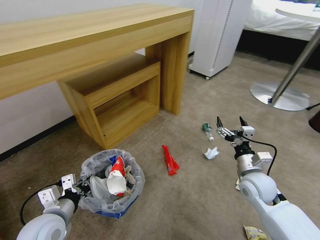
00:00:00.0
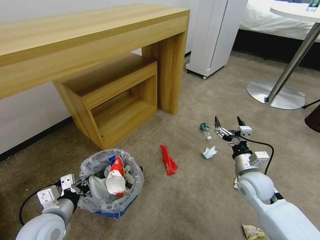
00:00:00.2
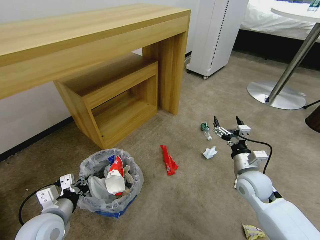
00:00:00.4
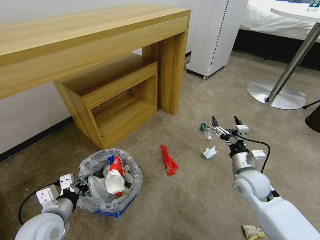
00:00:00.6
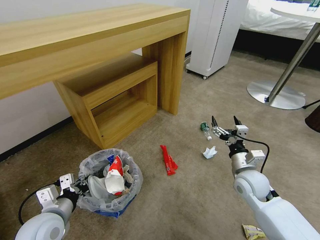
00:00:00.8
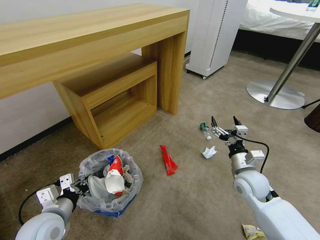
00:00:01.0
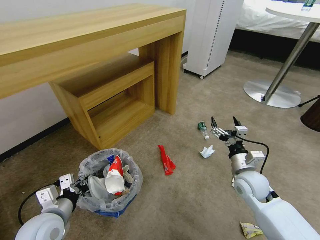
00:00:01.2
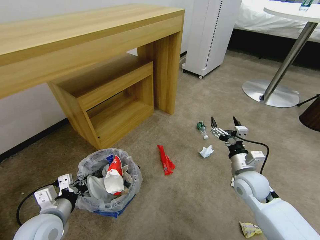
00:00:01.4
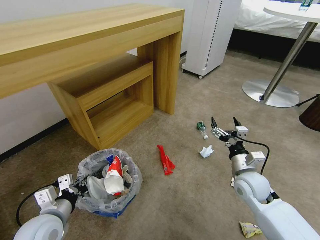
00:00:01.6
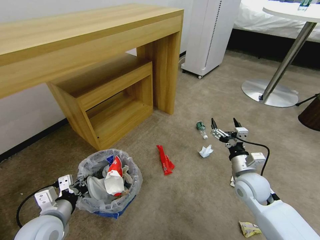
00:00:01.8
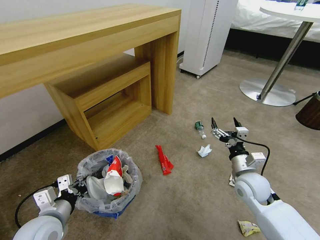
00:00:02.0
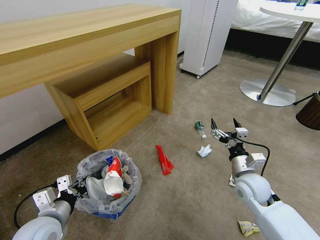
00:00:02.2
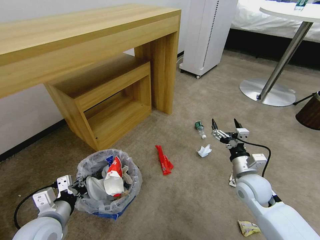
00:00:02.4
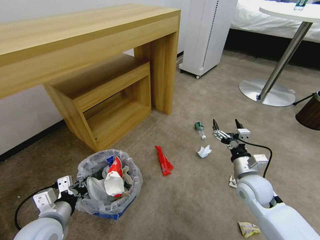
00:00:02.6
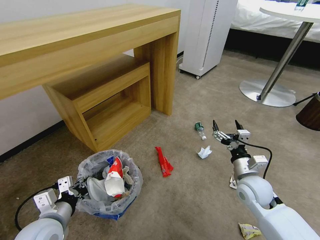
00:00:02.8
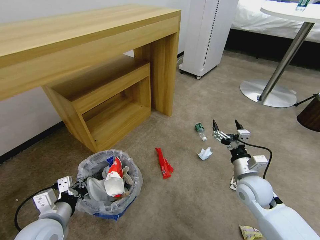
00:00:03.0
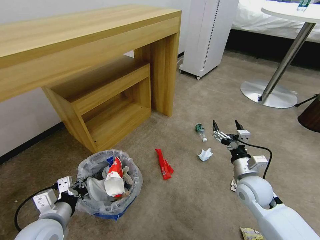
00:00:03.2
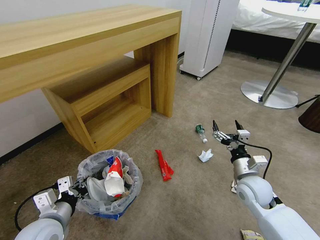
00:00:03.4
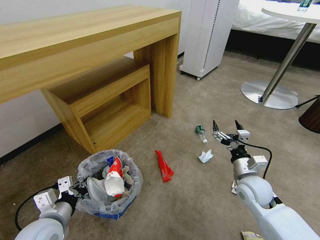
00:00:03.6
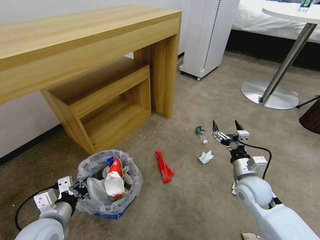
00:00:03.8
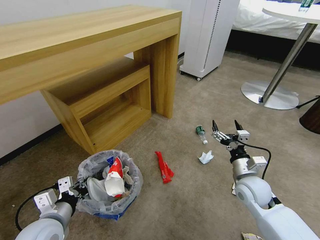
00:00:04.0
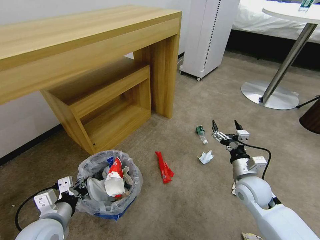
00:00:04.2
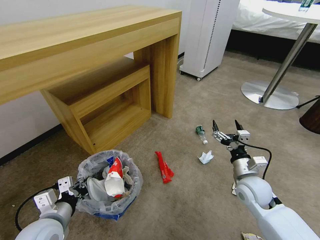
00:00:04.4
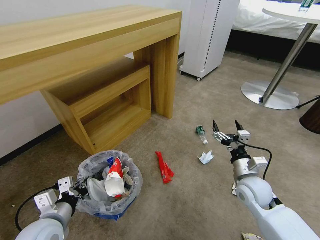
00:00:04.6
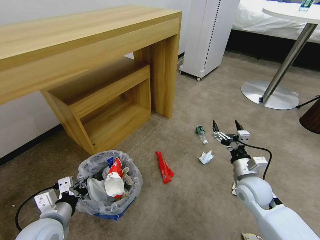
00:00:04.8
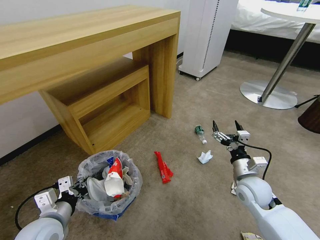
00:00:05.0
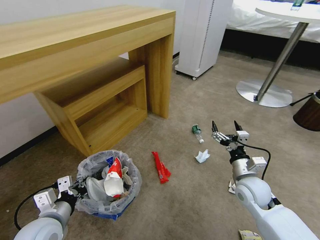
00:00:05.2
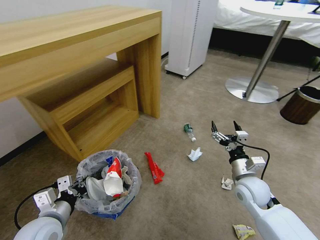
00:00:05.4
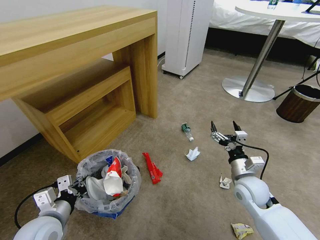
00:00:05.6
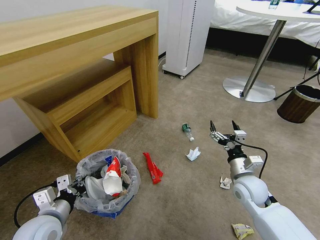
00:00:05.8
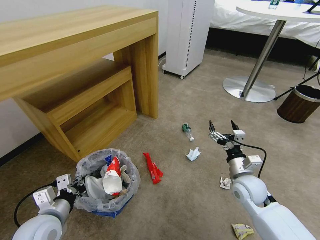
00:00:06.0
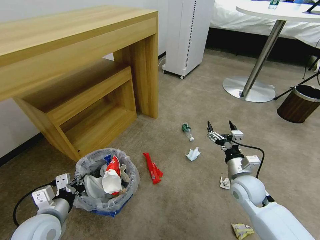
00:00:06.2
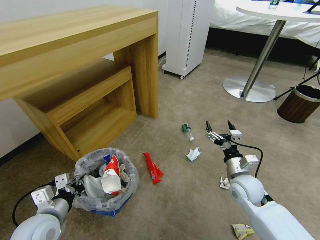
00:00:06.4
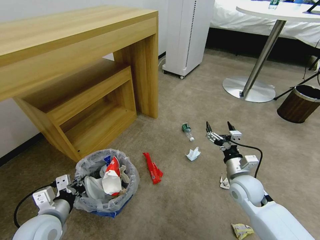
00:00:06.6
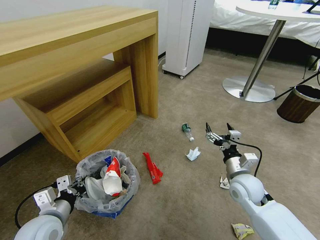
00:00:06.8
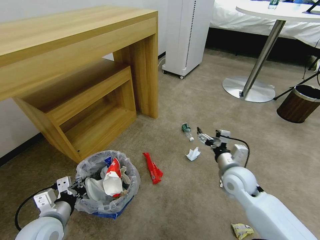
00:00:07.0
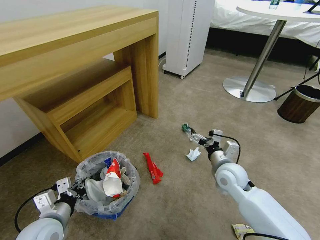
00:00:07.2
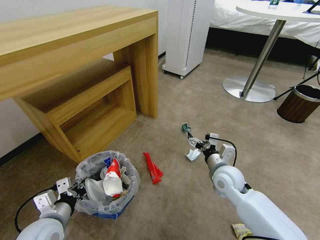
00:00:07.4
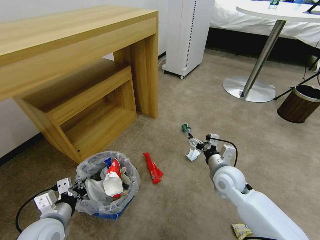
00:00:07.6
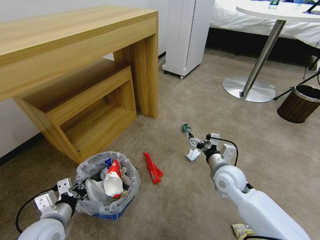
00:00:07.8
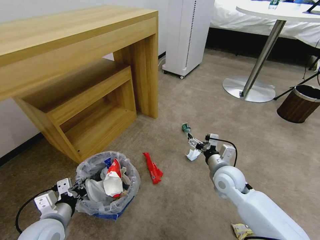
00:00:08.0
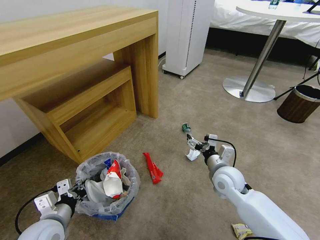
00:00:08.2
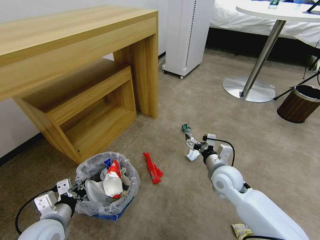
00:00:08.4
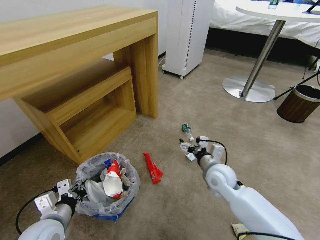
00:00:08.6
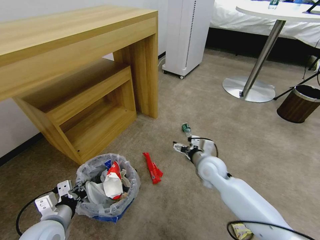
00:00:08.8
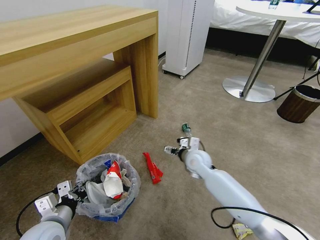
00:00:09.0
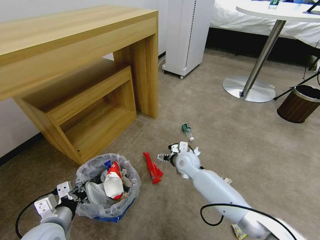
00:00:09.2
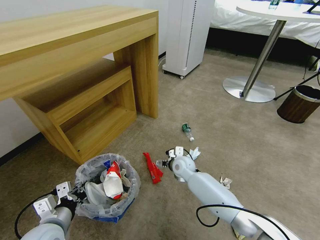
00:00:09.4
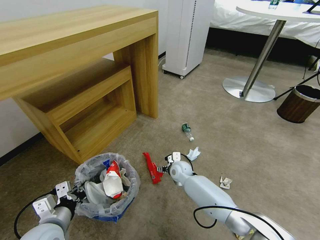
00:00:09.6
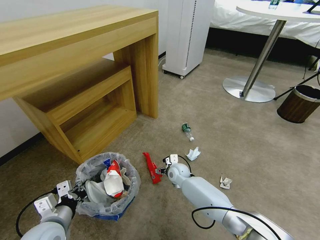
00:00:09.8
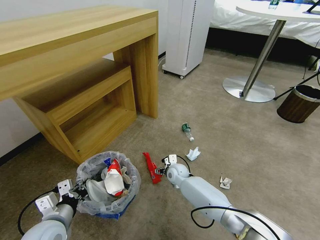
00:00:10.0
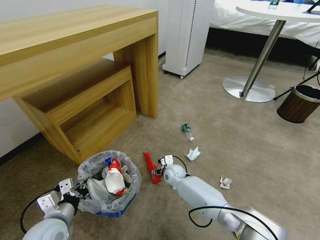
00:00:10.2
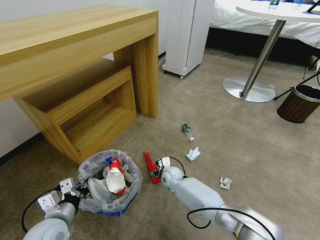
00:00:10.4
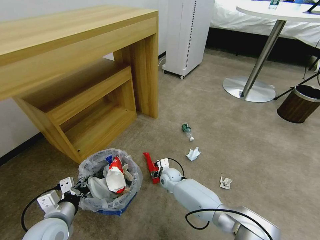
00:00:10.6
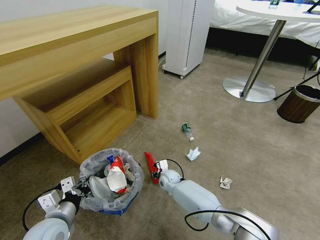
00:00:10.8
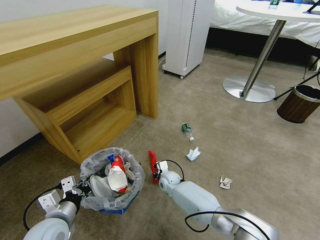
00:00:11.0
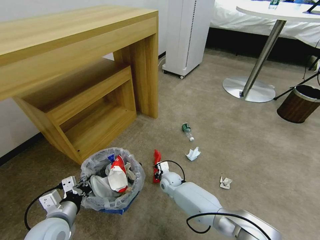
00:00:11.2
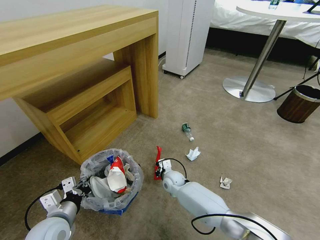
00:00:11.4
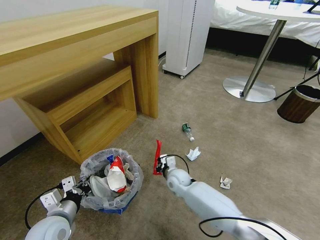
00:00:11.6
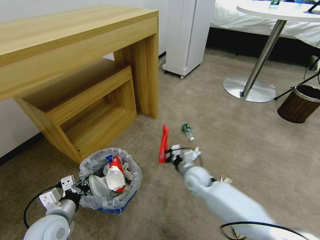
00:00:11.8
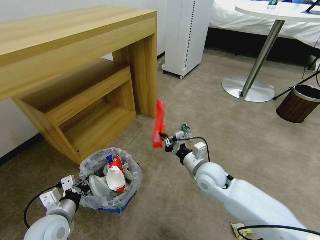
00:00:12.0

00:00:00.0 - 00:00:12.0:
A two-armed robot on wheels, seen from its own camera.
Task of the whole recording: Pick up the trash bin and place the garbage on the floor into it.
00:00:00.0 - 00:00:01.6: The grippers stay close to where they were, moving slightly.
00:00:01.6 - 00:00:03.0: The two grippers keep their place.
00:00:03.0 - 00:00:04.4: The two grippers keep their place.
00:00:06.0 - 00:00:07.6: The right gripper shifts approximately 5 cm to the left.
00:00:07.6 - 00:00:09.0: The right gripper shifts some 10 cm forward and to the left.
00:00:09.0 - 00:00:10.4: The right gripper moves downward and to the left, roughly 20 cm.
00:00:10.4 - 00:00:12.0: The right gripper travels upward, to the right and backward by some 25 cm, and closes up.

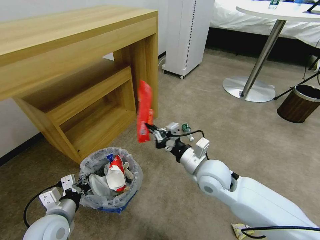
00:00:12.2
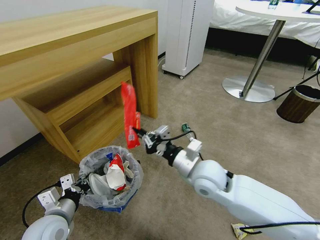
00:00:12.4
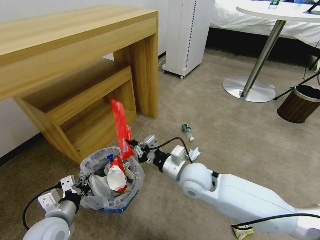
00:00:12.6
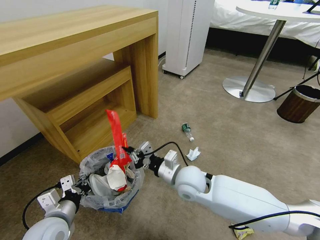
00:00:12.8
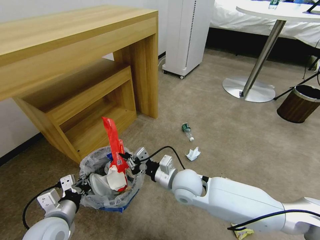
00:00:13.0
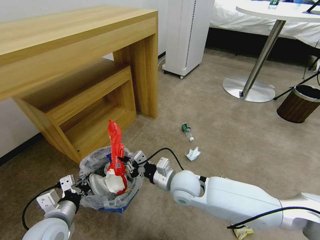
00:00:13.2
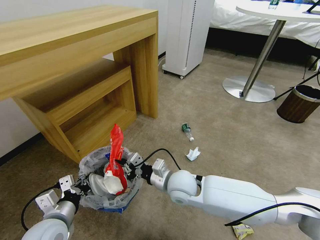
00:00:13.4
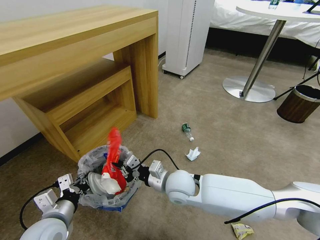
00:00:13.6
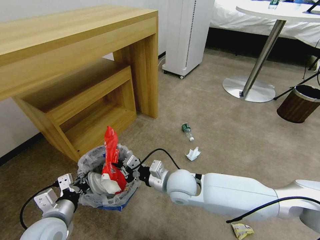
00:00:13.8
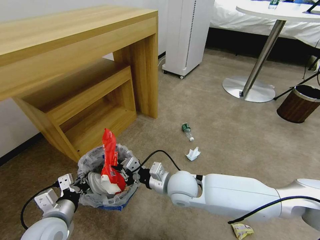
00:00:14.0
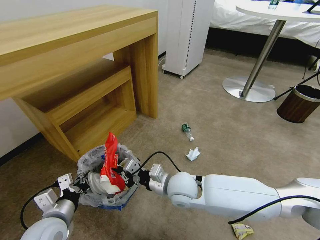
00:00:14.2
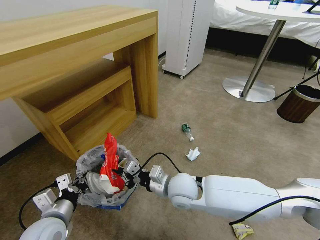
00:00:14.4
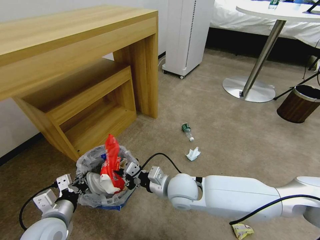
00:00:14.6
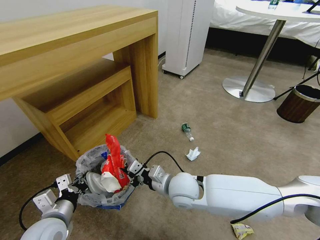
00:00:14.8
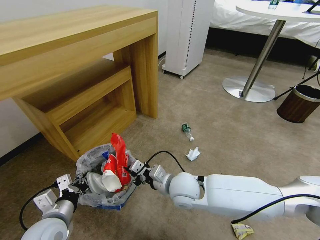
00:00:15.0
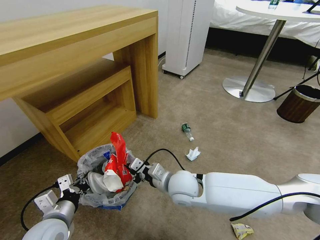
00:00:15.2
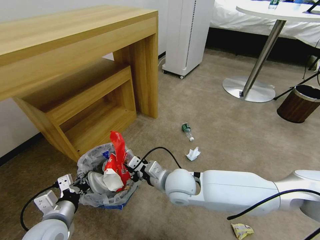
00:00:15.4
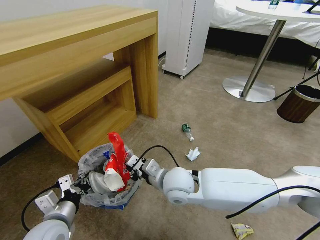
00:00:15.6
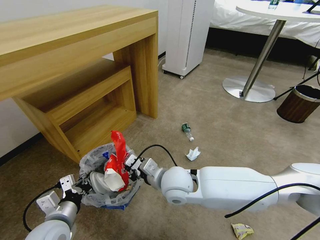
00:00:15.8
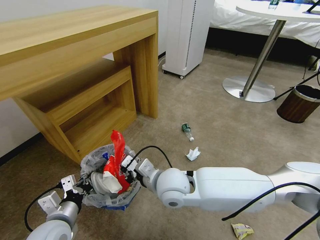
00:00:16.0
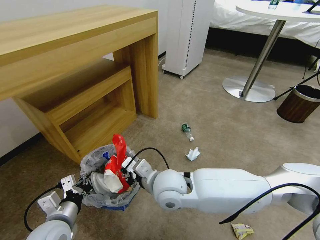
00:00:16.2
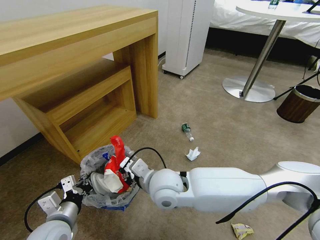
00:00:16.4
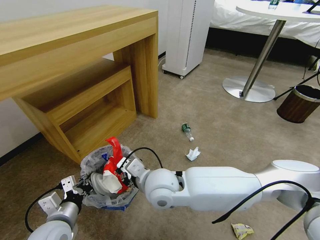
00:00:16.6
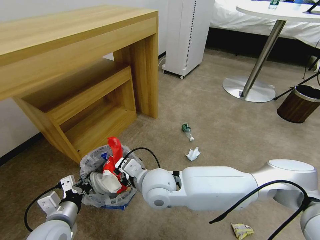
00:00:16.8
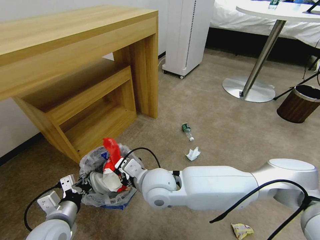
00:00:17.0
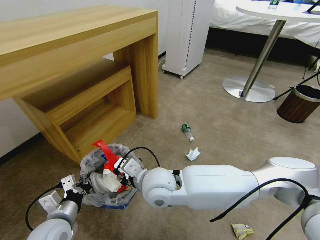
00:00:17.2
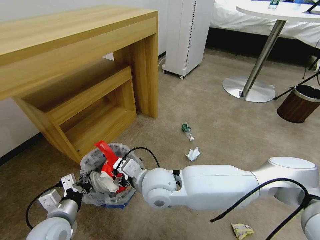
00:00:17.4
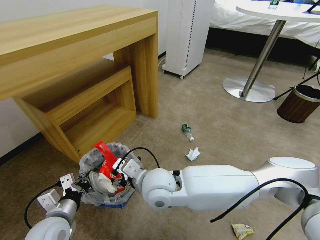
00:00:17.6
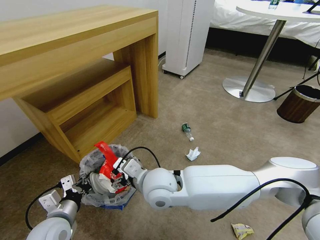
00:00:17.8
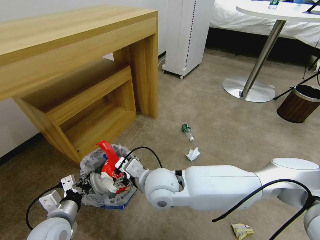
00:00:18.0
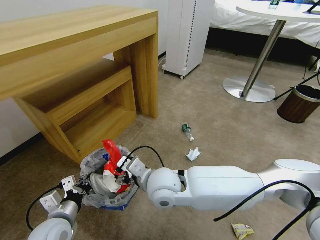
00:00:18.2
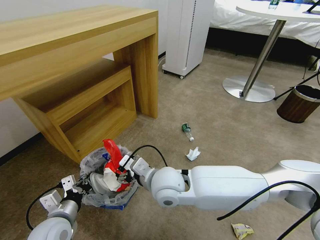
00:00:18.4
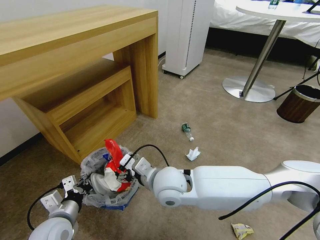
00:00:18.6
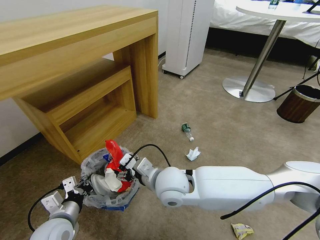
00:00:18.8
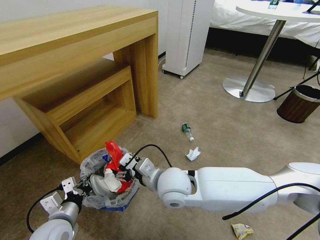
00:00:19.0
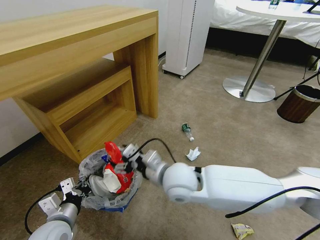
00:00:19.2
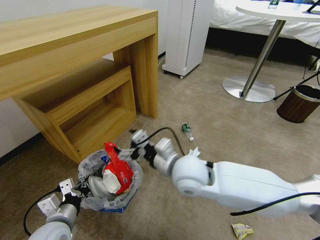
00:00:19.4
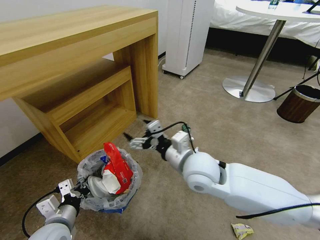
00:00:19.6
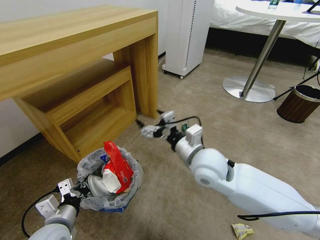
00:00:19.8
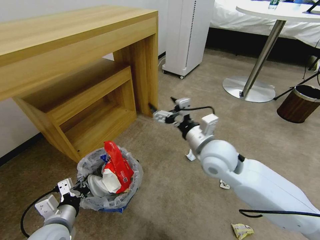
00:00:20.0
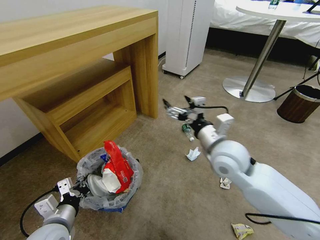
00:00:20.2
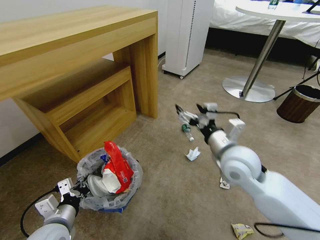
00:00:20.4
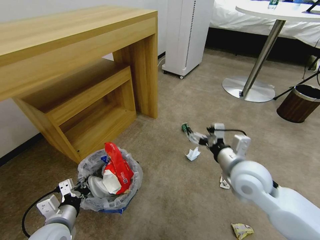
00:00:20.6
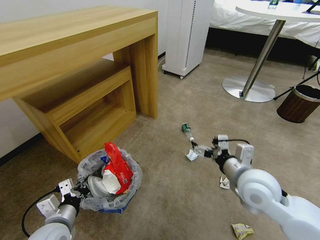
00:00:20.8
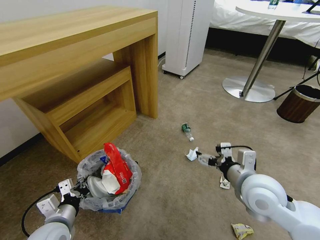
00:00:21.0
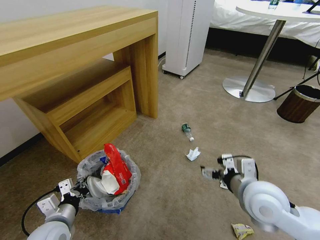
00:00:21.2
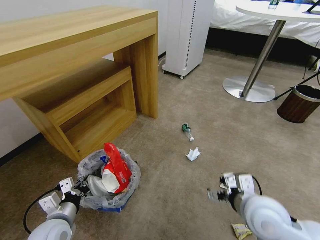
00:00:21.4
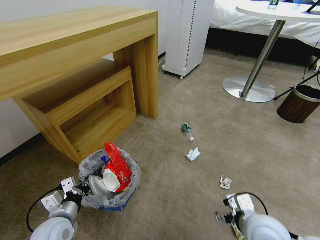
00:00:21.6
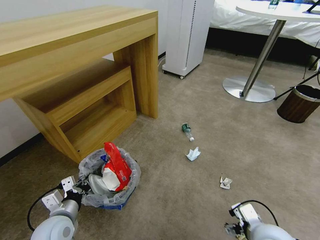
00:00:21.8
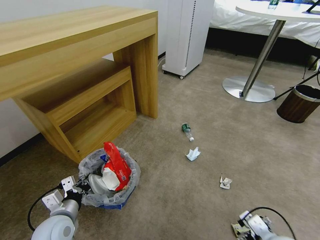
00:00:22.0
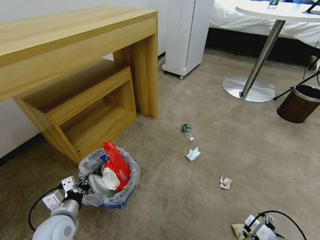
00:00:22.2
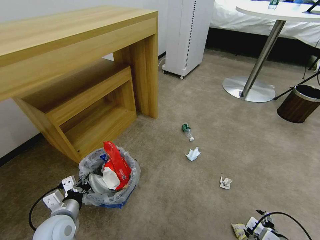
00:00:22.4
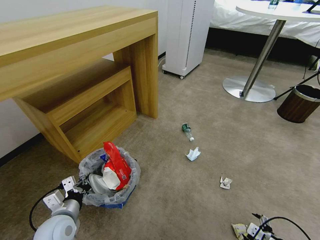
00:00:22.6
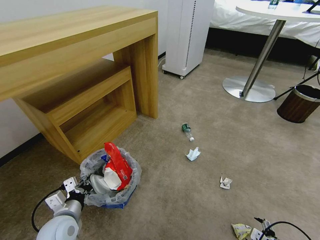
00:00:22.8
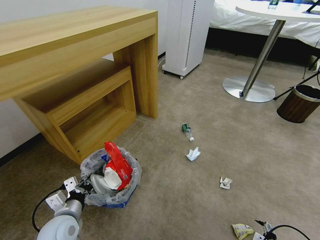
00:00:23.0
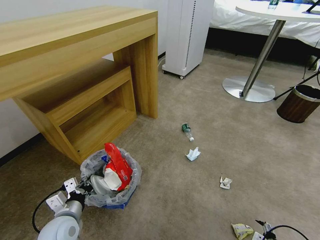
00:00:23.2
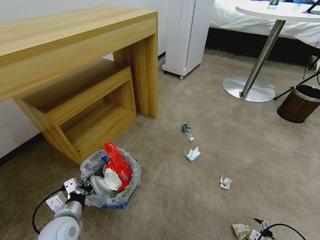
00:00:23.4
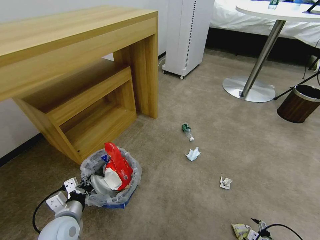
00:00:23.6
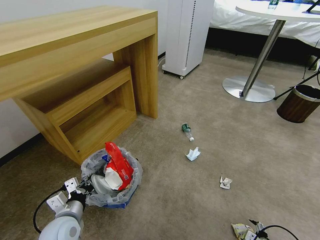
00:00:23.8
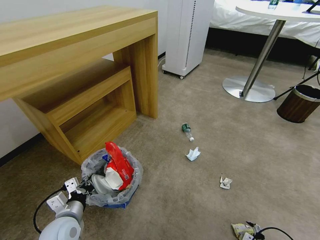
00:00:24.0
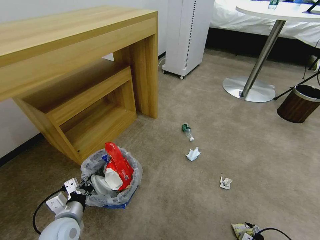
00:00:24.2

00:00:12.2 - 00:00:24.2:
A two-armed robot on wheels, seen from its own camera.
Task of the whole recording: Pick up the trash bin and place the garbage on the floor into it.
00:00:12.2 - 00:00:13.8: The right gripper moves to the left and downward, some 10 cm.
00:00:13.8 - 00:00:15.2: The grippers make only small movements.
00:00:15.2 - 00:00:16.6: The right gripper shifts some 10 cm to the left and upward.
00:00:16.6 - 00:00:18.2: The right gripper opens.
00:00:18.2 - 00:00:19.8: The right gripper shifts about 10 cm to the right.
00:00:19.8 - 00:00:21.2: The right gripper goes approximately 15 cm to the right and backward.
00:00:21.2 - 00:00:22.6: The right gripper travels downward, to the right and backward by about 25 cm.
00:00:22.6 - 00:00:24.2: The right gripper is displaced downward by roughly 10 cm.
